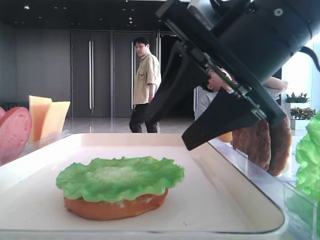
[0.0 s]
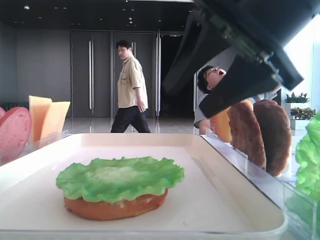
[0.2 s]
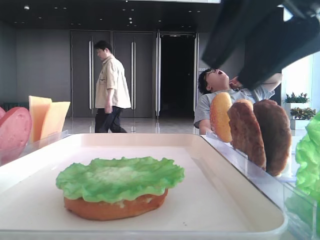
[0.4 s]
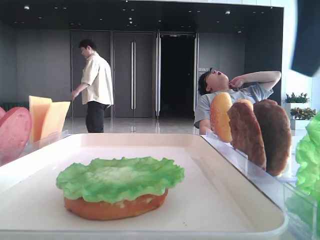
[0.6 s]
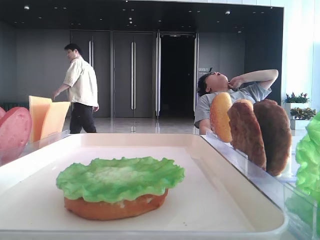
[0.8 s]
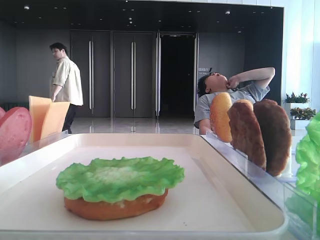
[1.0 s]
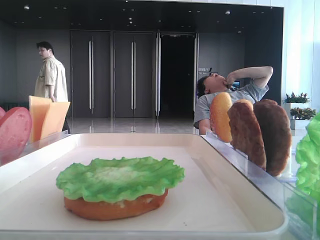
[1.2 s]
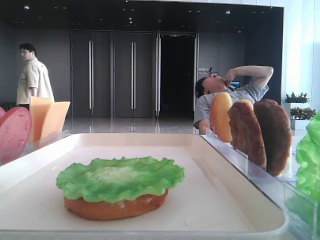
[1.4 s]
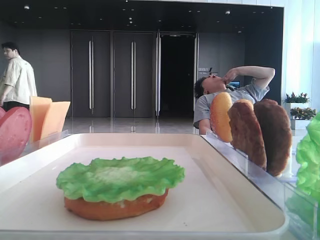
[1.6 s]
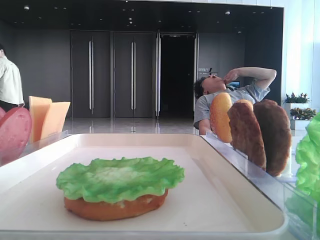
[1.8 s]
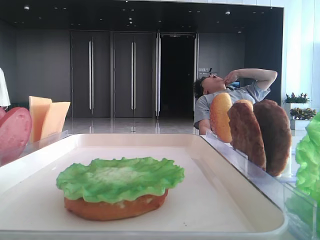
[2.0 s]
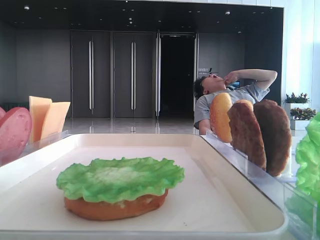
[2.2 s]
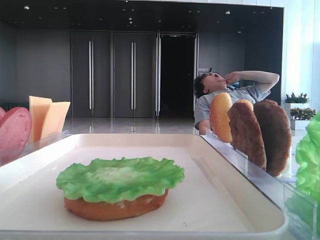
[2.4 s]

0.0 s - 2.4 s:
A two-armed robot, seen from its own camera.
0.0 s - 1.2 s: The right gripper shifts roughly 25 cm to the right, upward and backward.
1.2 s - 2.4 s: The right gripper goes roughly 15 cm backward.

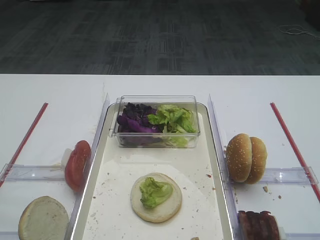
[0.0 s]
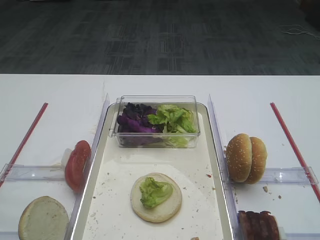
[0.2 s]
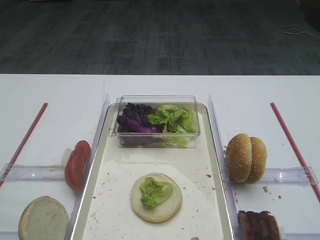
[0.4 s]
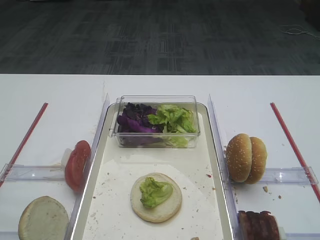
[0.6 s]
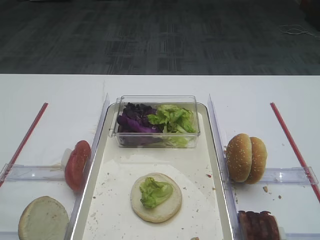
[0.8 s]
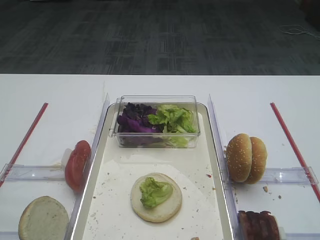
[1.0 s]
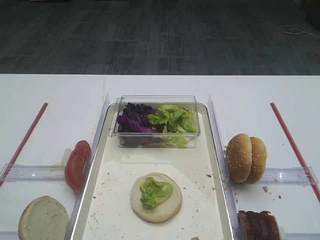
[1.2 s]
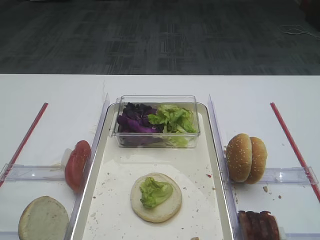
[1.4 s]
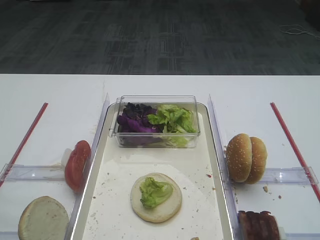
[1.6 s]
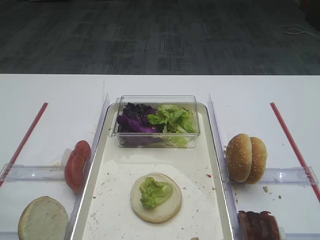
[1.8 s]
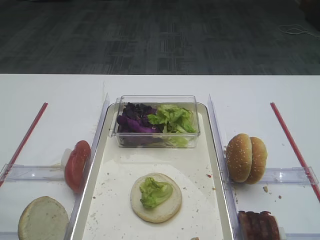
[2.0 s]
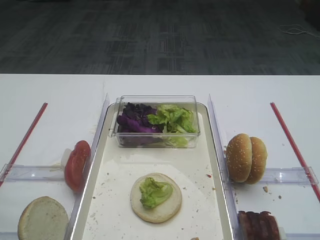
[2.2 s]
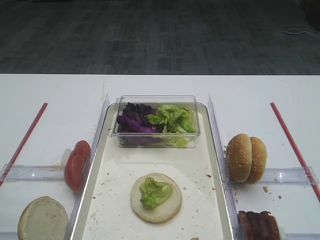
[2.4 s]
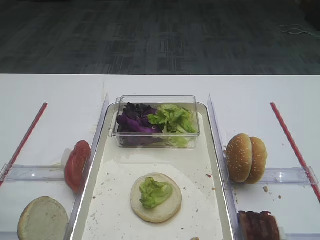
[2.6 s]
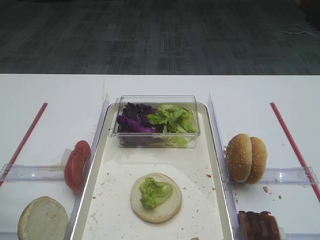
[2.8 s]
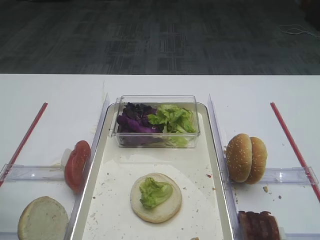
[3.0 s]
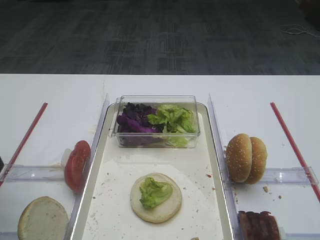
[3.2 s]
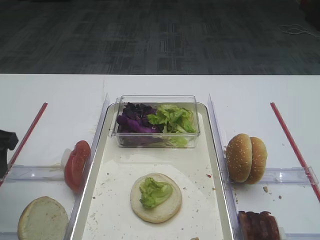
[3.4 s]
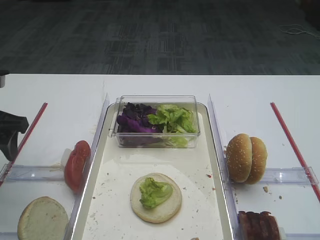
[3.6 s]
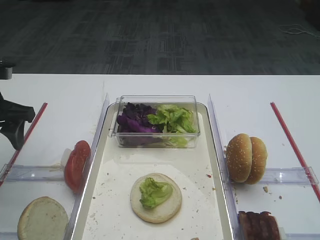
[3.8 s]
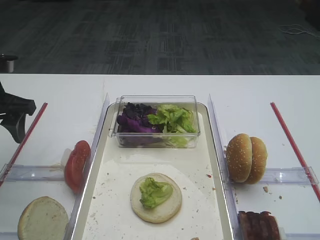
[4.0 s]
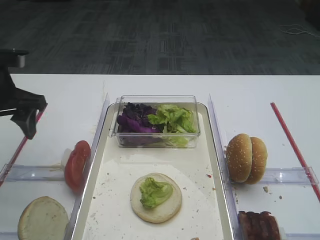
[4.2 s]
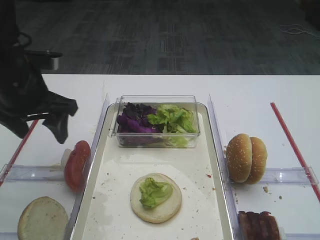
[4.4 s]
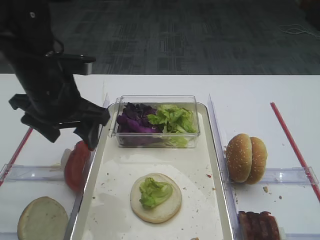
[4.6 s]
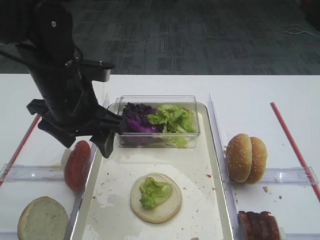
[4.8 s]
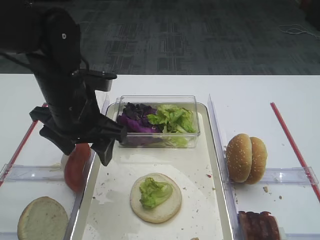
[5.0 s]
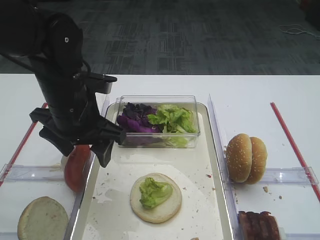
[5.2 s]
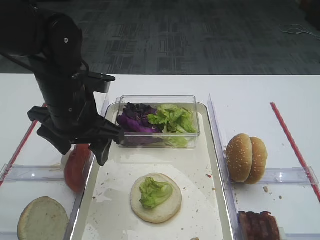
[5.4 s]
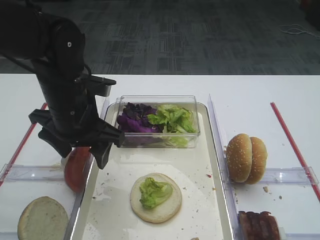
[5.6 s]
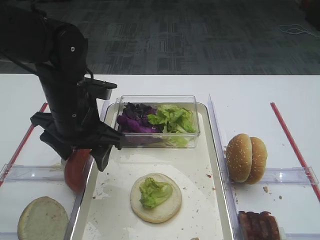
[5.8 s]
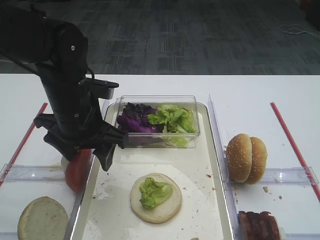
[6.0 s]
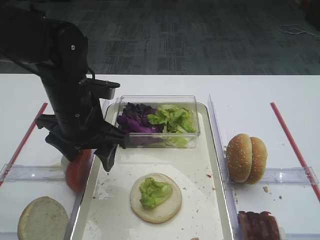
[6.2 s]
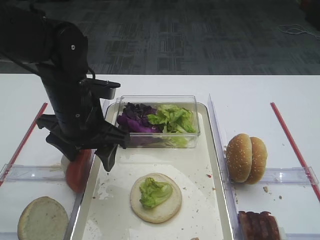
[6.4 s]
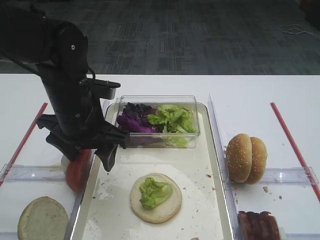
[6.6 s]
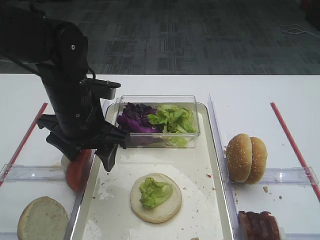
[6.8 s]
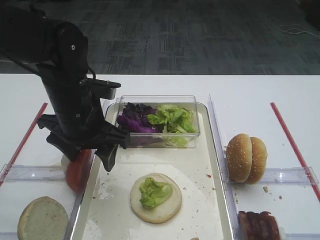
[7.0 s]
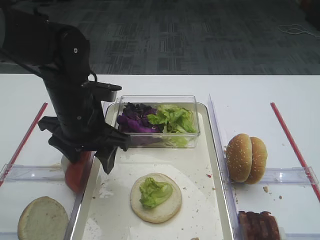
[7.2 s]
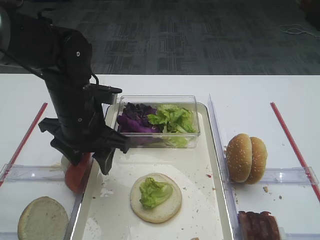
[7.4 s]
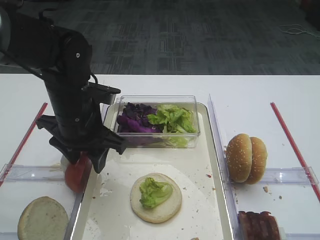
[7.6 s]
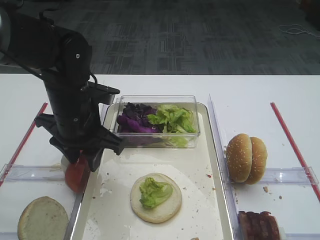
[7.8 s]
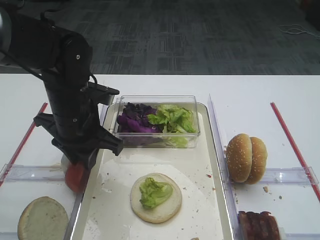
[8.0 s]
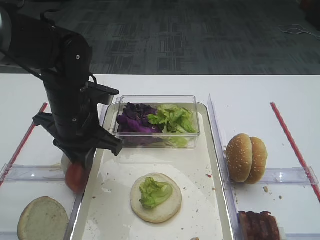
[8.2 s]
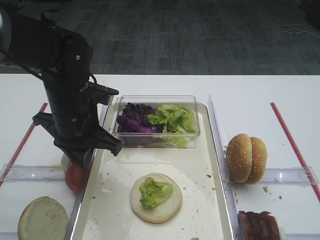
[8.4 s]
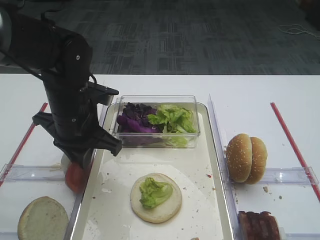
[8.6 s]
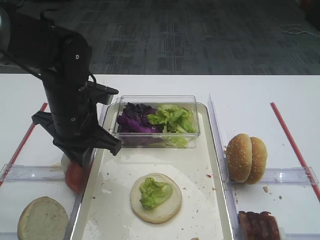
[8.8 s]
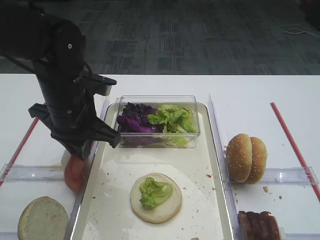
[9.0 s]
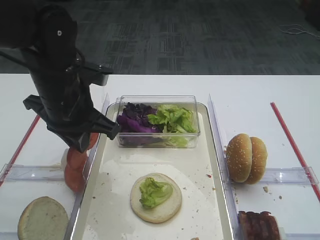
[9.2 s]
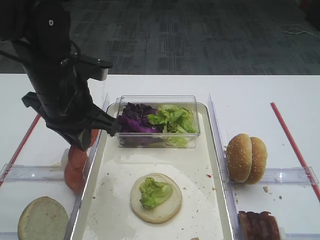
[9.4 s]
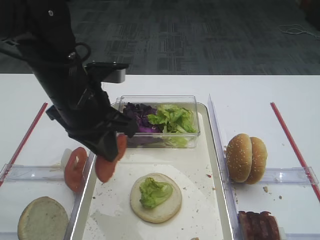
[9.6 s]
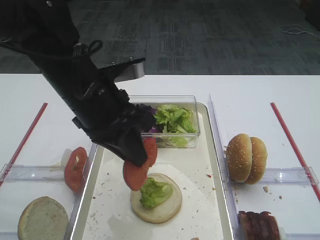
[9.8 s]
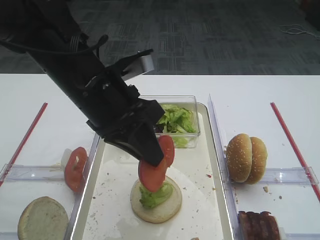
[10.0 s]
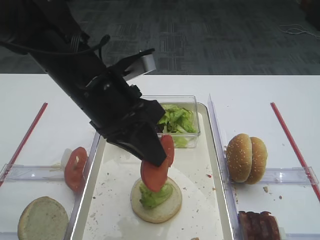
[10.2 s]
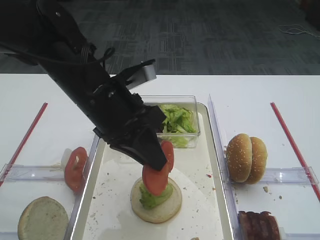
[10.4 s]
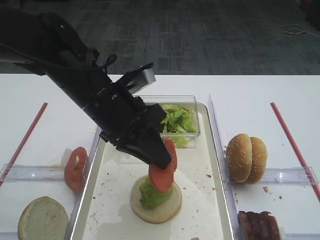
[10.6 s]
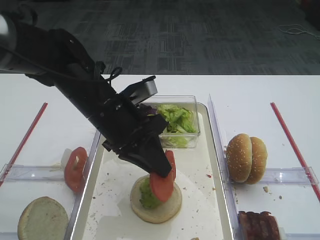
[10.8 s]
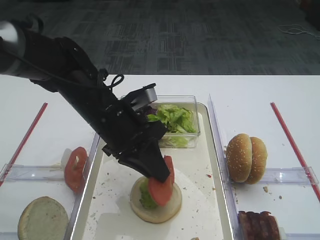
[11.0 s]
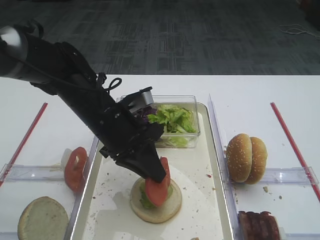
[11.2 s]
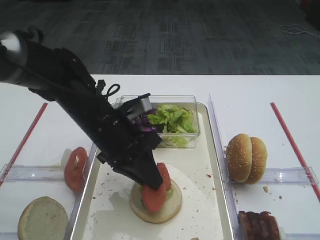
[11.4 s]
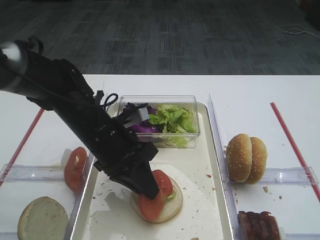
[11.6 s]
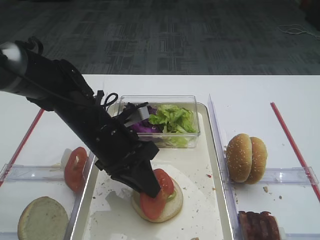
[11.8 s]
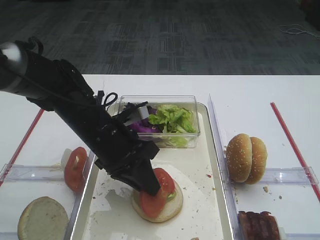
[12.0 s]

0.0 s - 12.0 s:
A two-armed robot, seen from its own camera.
Step, 0.0 s - 9.0 s: Pick up the tomato slice with the left gripper.
3.0 s - 4.4 s: The left gripper goes some 15 cm forward and to the right.
4.4 s - 6.0 s: The left gripper goes some 10 cm to the right.
6.0 s - 7.6 s: The two grippers keep their place.
7.6 s - 9.0 s: The left gripper closes up.
9.0 s - 10.4 s: The left gripper moves to the right, about 5 cm.
10.4 s - 12.0 s: The left gripper travels downward by approximately 10 cm.

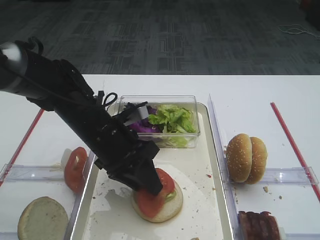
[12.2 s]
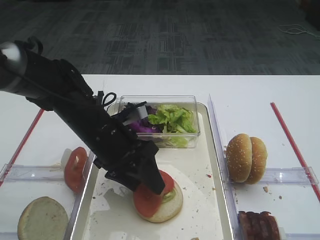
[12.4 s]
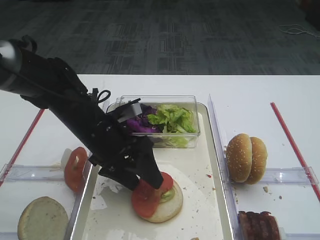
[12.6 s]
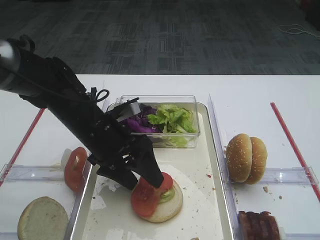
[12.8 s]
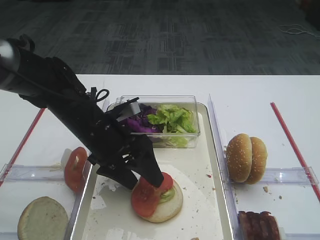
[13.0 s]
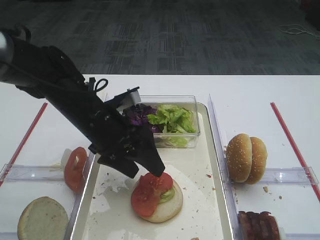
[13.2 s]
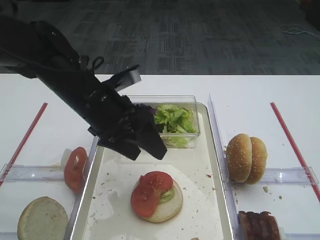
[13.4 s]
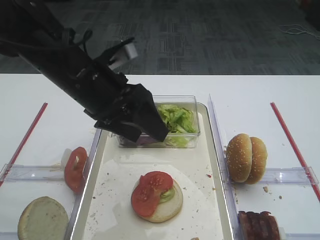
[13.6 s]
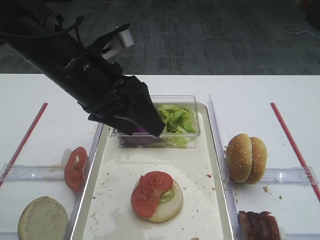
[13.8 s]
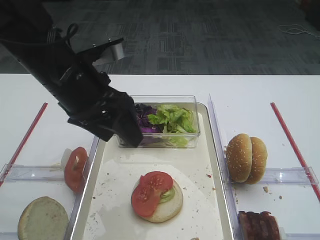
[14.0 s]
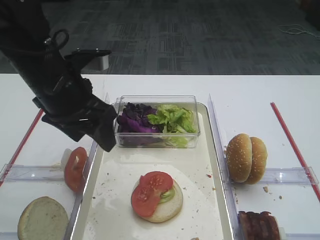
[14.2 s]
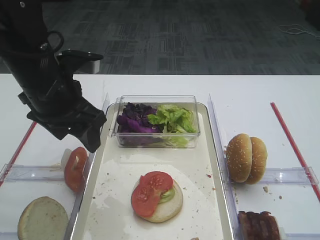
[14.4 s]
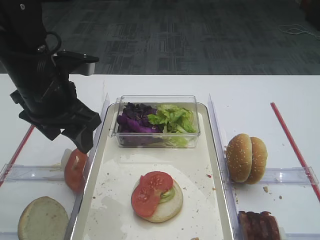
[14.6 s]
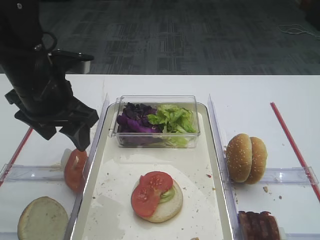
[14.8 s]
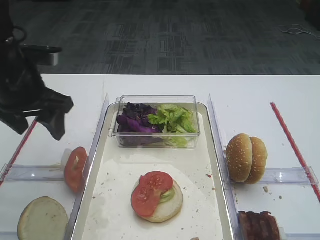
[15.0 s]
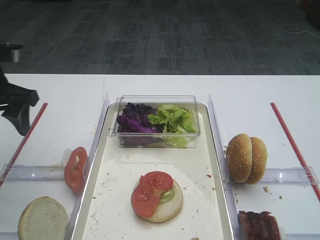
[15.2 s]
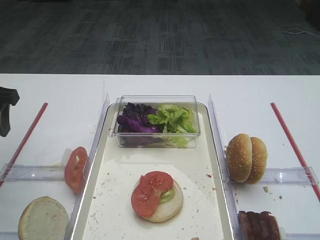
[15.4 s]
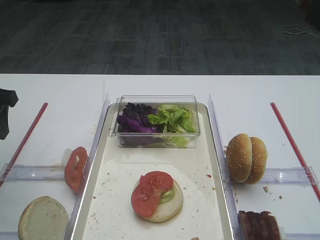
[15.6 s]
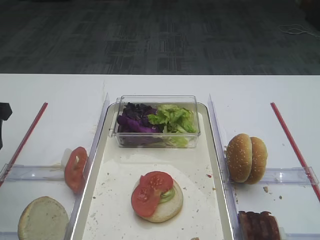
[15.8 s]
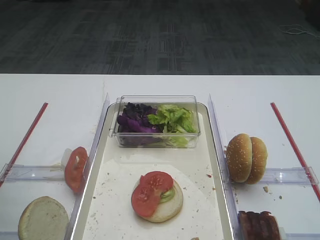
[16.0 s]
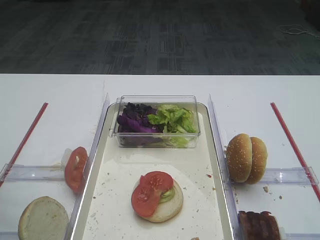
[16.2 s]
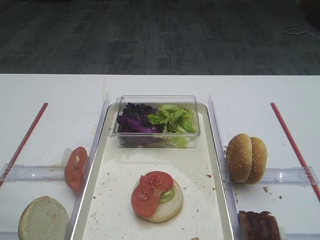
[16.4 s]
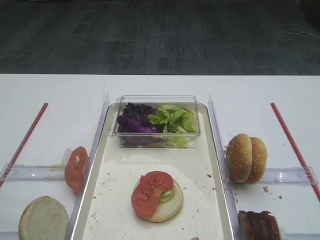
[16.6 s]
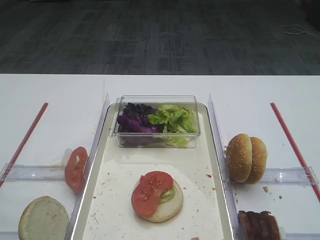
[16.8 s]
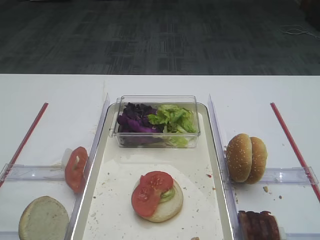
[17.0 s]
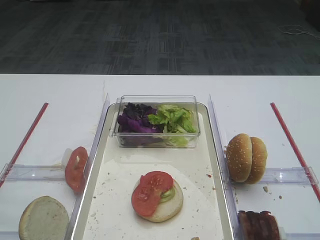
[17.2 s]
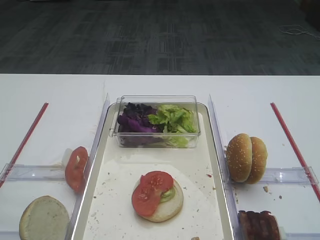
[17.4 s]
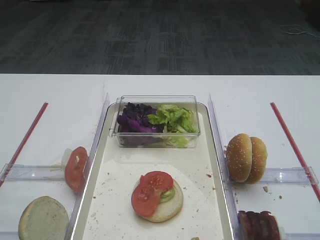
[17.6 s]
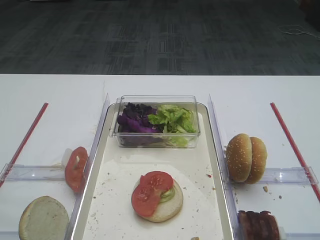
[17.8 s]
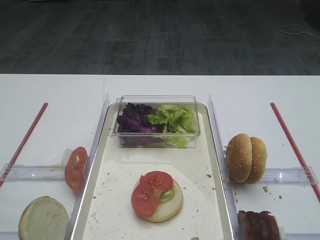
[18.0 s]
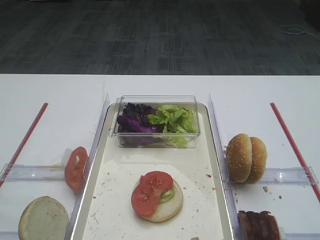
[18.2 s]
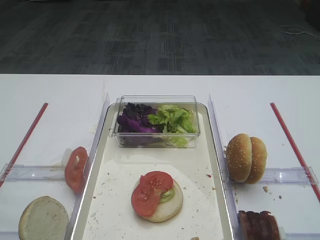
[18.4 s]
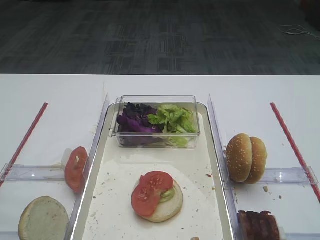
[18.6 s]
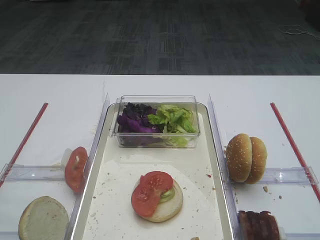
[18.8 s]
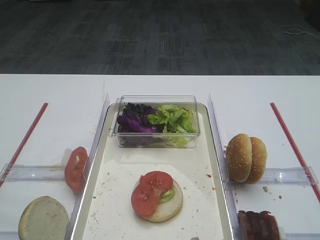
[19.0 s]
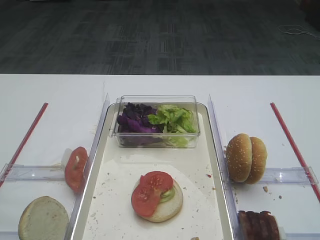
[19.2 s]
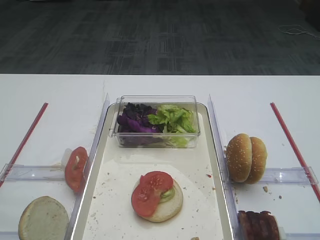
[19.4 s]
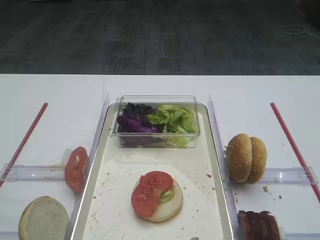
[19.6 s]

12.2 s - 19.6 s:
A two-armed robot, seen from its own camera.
12.2 s - 13.6 s: The left gripper is displaced upward by about 10 cm, and opens.
13.6 s - 15.2 s: The left gripper heads to the left, covering roughly 15 cm.
15.2 s - 16.6 s: The left gripper goes some 20 cm backward.
18.2 s - 19.6 s: Both grippers stay about where they are.
